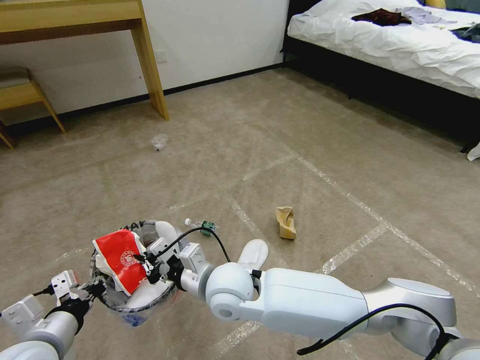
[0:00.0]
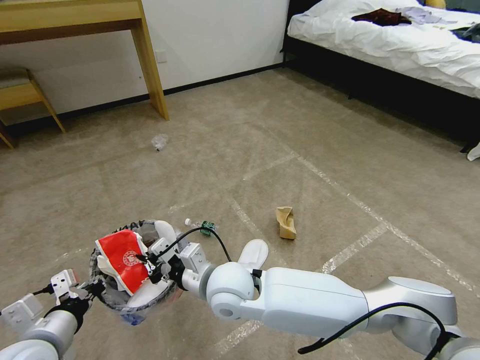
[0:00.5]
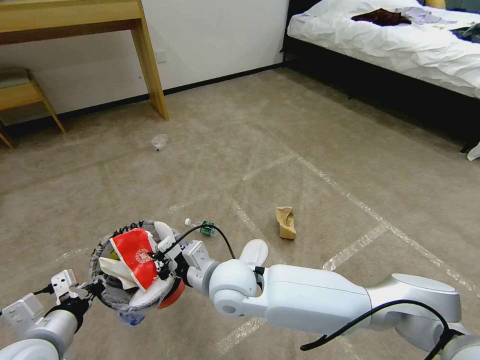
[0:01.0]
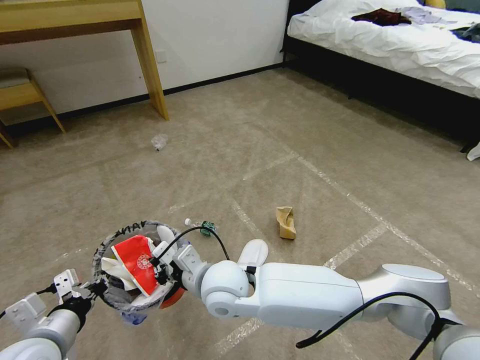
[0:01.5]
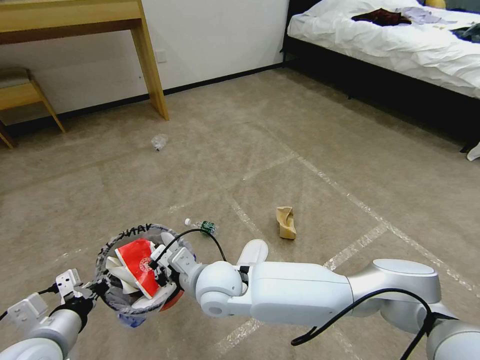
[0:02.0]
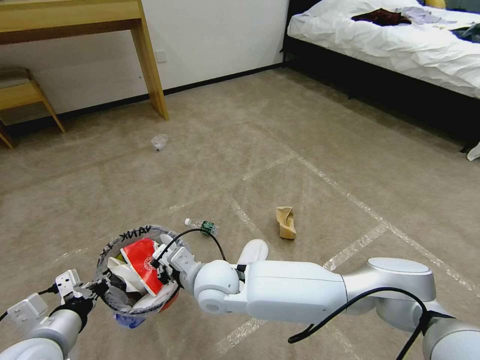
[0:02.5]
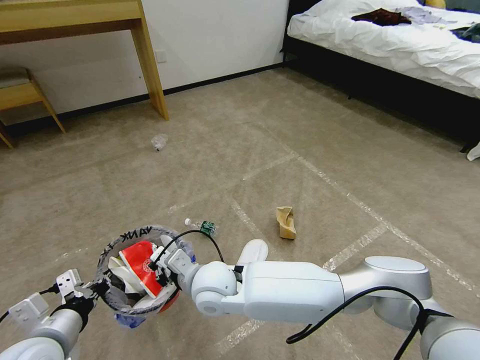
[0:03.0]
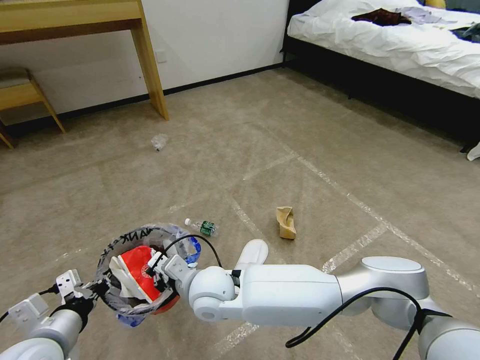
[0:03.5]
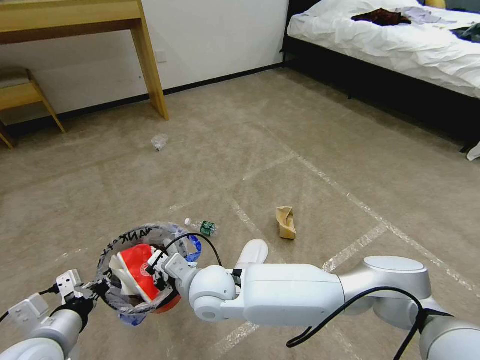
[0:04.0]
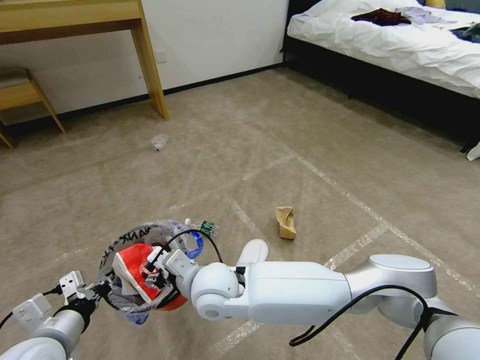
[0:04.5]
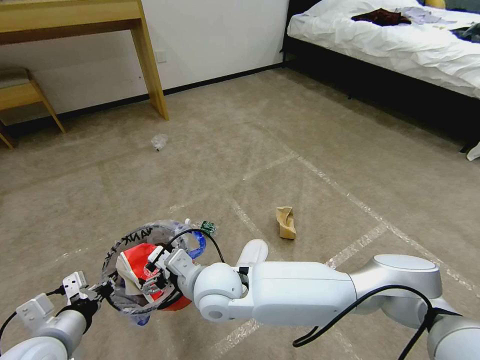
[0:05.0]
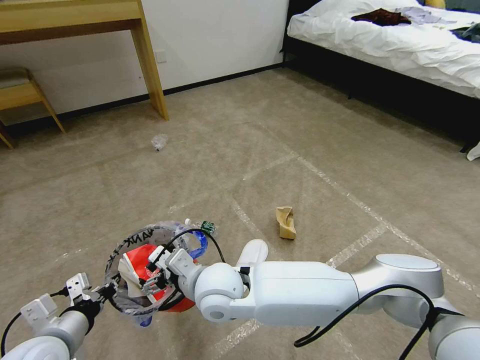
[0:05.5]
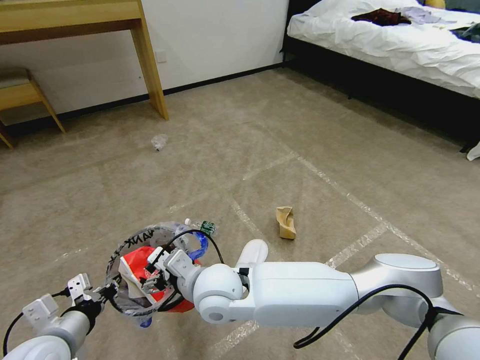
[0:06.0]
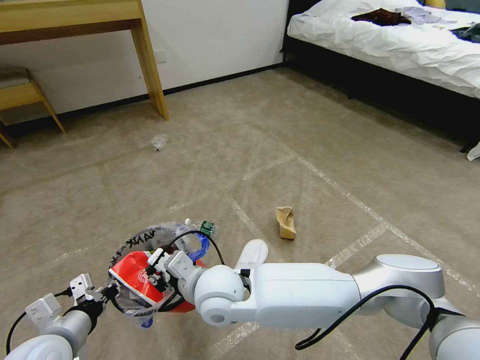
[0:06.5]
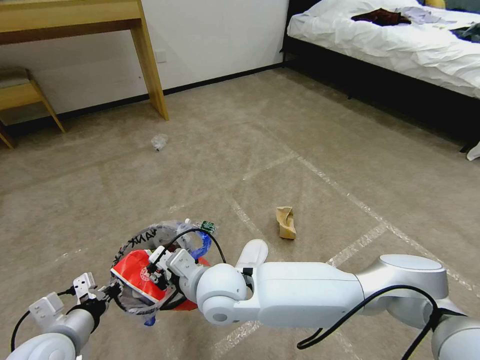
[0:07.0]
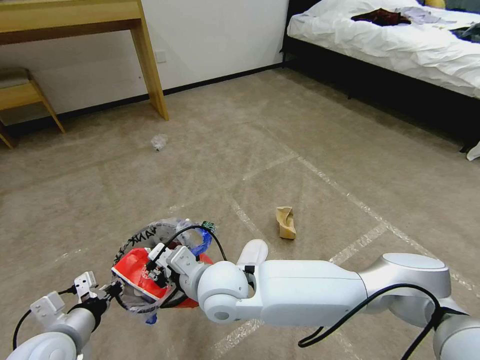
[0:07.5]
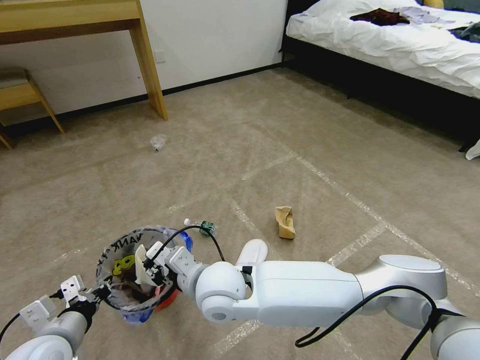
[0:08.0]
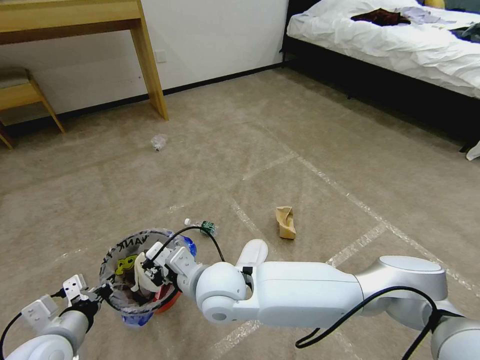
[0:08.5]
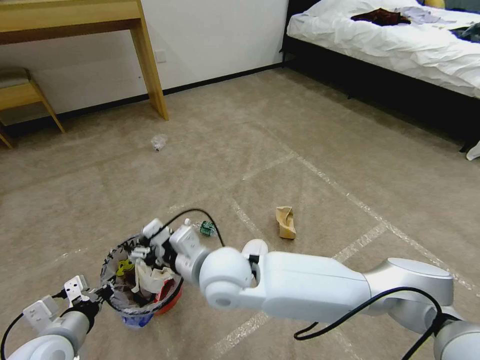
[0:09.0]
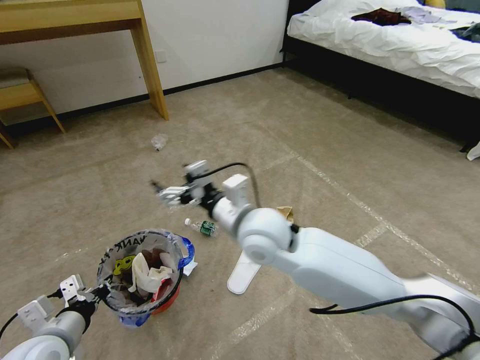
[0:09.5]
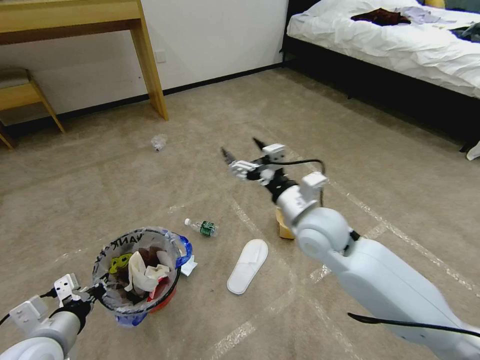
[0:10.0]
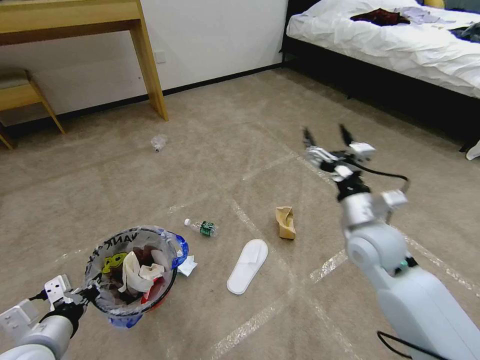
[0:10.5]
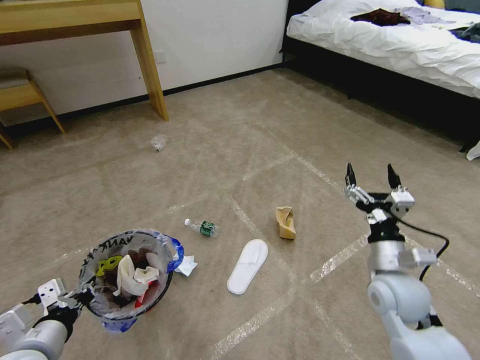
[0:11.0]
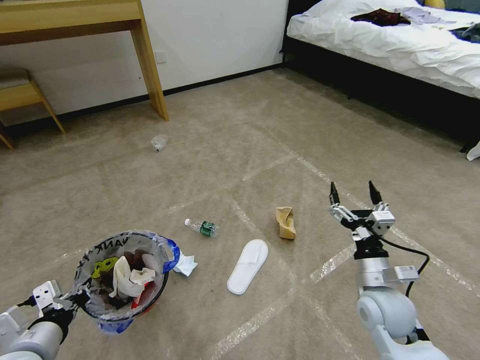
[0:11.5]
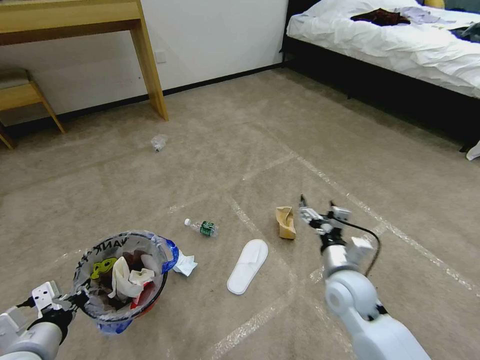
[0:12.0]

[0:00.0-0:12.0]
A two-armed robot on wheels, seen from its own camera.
Task of the whole recording: Pick up the trash bin and place the garbage on the floor into it.
0.0 to 2.0 s: There are only small adjustments of the grippers.
2.0 to 4.0 s: There are only small adjustments of the grippers.
4.0 to 6.0 s: The right gripper opens its fingers.
6.0 to 8.0 s: The right gripper closes.
8.0 to 10.0 s: The right gripper shifts approximately 20 cm to the right and forward, and opens.
10.0 to 12.0 s: The right gripper shifts some 20 cm downward, to the right and backward.

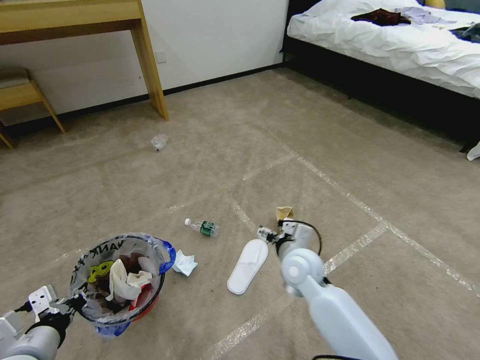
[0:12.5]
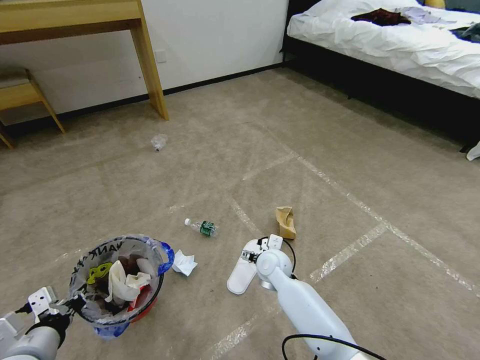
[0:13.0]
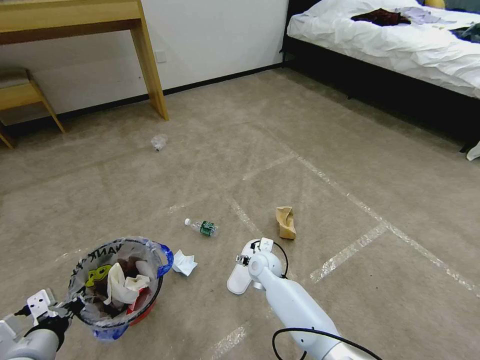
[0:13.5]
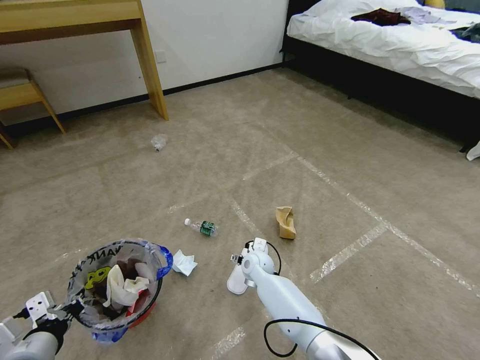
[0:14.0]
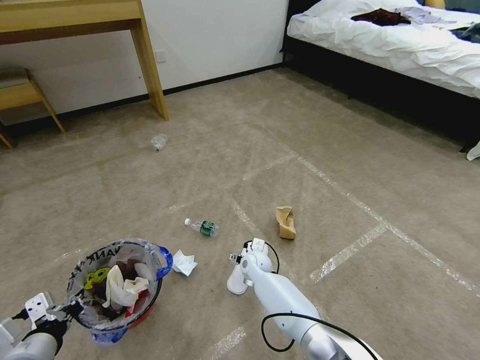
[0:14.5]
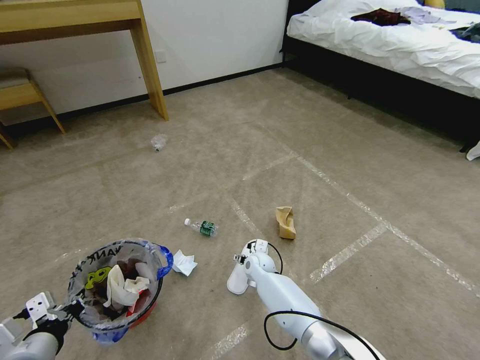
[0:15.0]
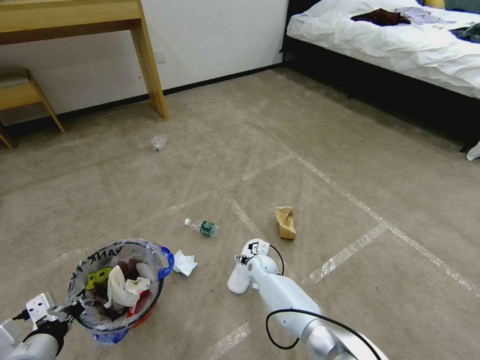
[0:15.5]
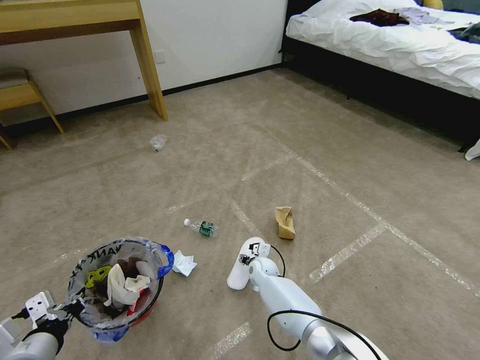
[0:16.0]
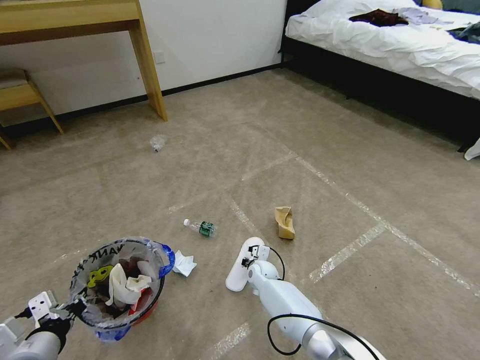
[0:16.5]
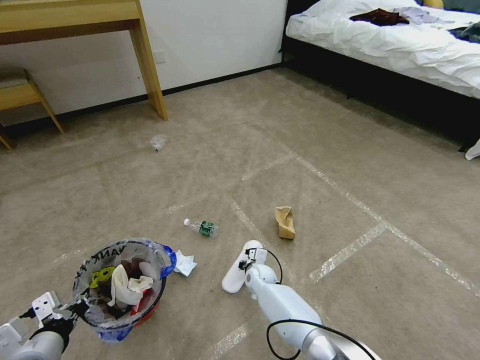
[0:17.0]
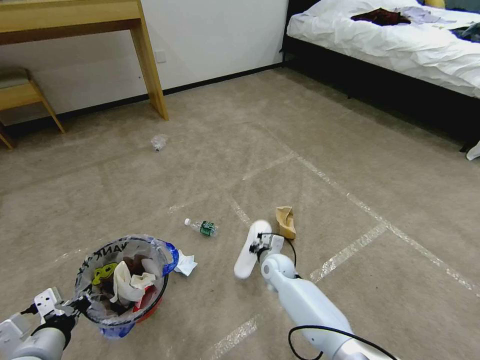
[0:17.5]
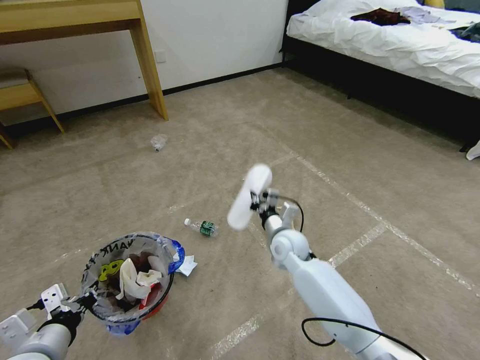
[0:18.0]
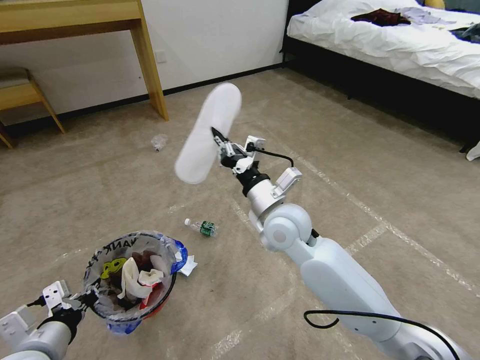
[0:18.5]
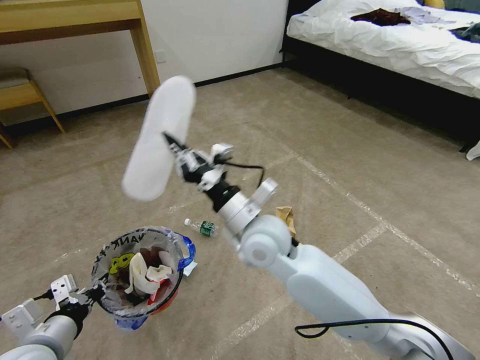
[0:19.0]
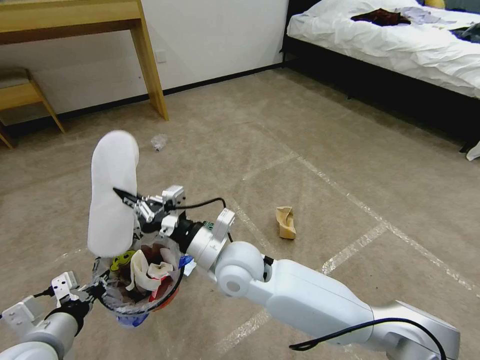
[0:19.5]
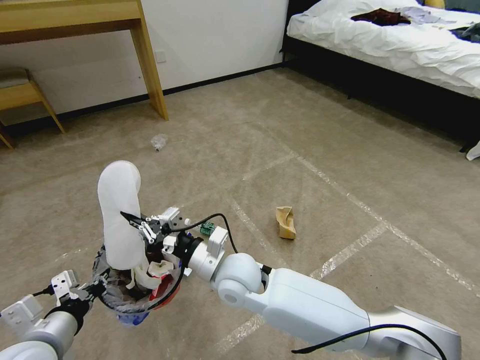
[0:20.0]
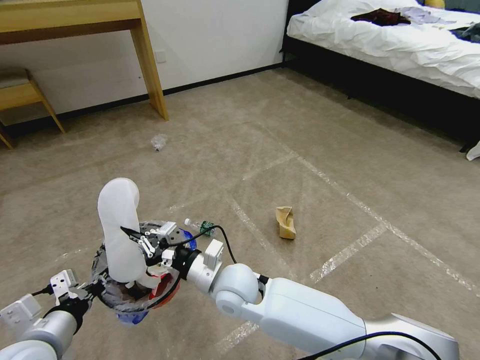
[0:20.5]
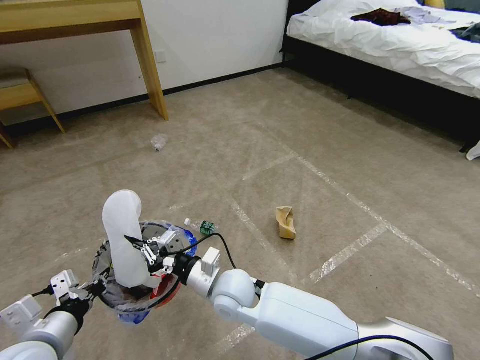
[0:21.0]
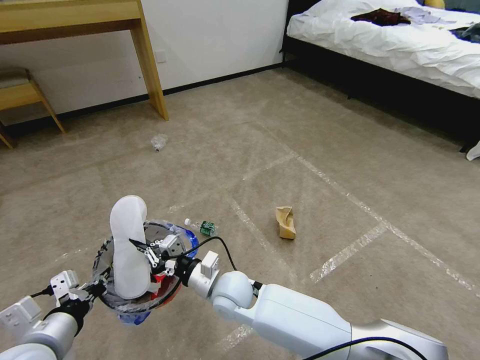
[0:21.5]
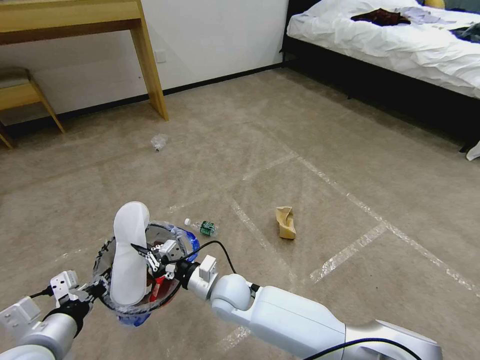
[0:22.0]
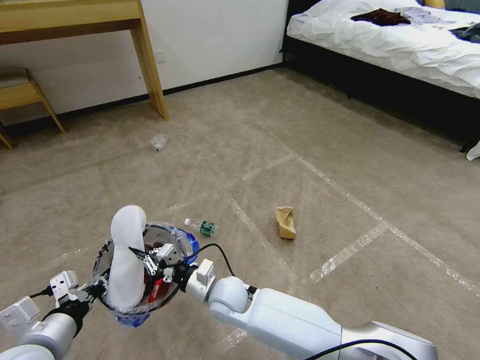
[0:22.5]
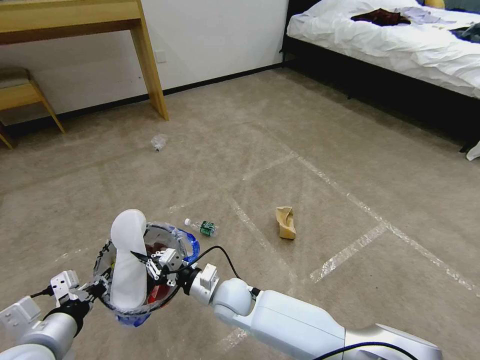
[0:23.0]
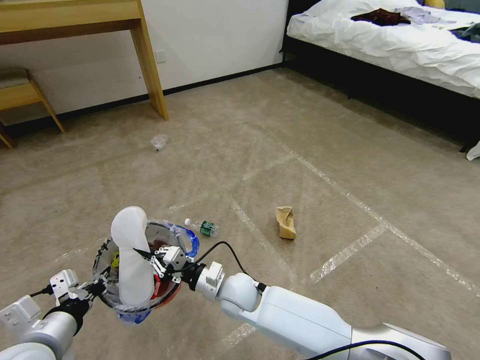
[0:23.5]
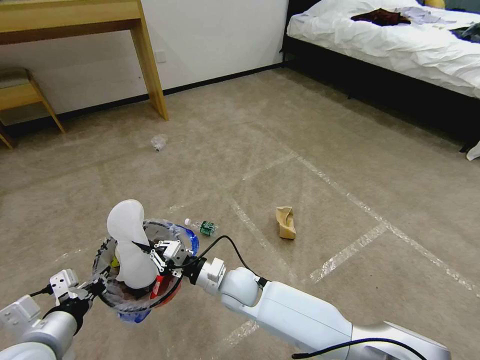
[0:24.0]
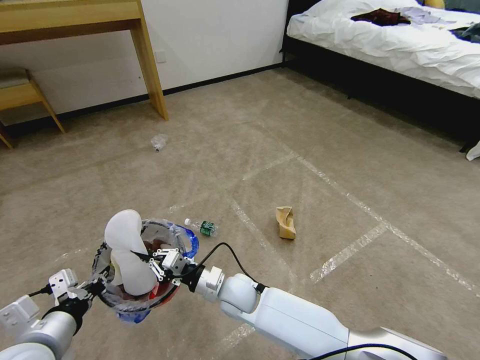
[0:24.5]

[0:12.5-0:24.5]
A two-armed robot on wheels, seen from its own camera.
Task of the whole recording: Pick up the trash bin and place the garbage on the floor into it.
12.5 to 14.5 s: The right gripper is displaced downward, to the left and forward by some 20 cm.
14.5 to 16.5 s: The right gripper changes place by approximately 5 cm, and closes its fingers.
16.5 to 18.5 s: The right gripper shifts approximately 35 cm upward.
18.5 to 20.5 s: The right gripper shifts approximately 15 cm downward, to the left and backward.
20.5 to 22.5 s: The right gripper is displaced downward by roughly 10 cm.
22.5 to 24.5 s: The grippers make only small movements.

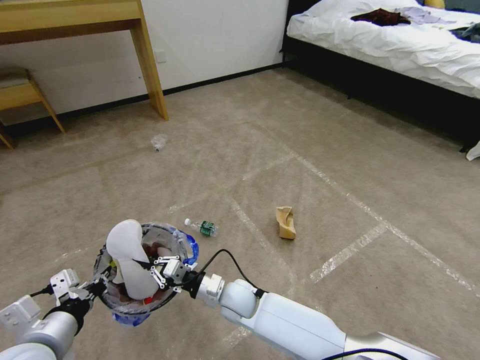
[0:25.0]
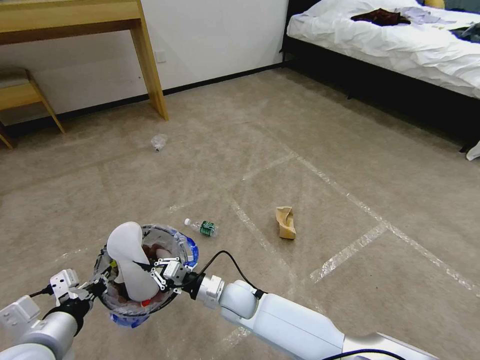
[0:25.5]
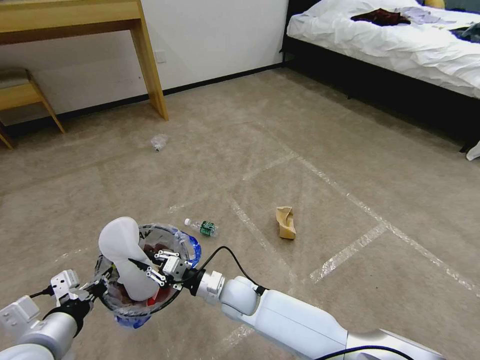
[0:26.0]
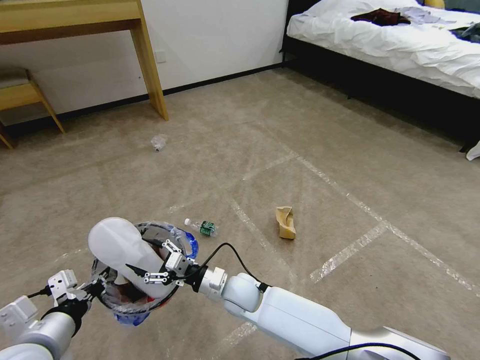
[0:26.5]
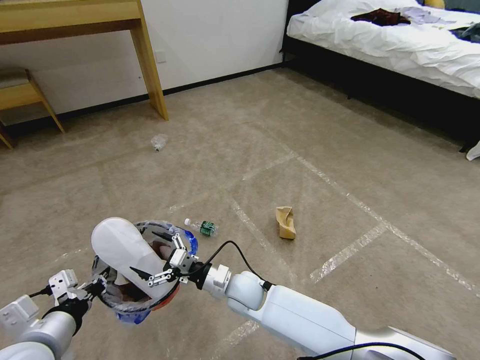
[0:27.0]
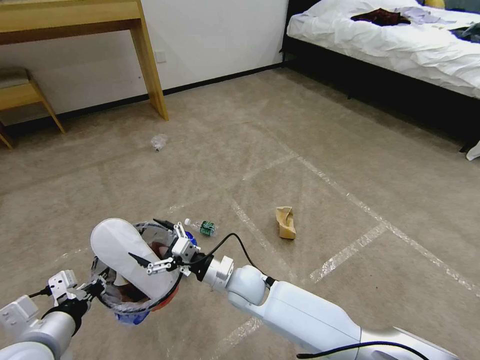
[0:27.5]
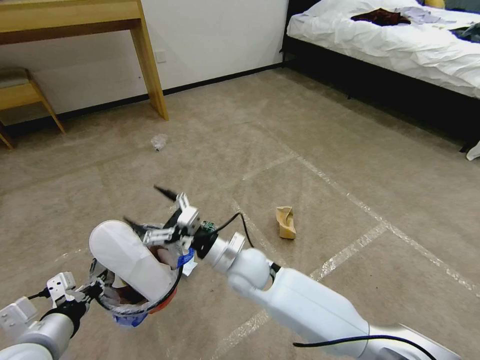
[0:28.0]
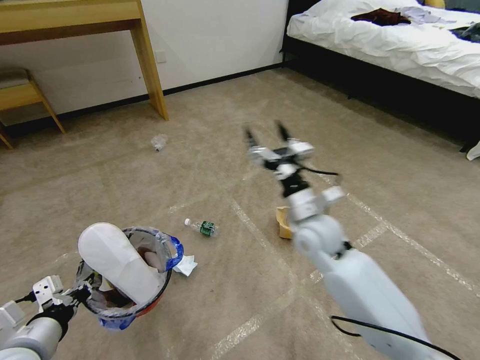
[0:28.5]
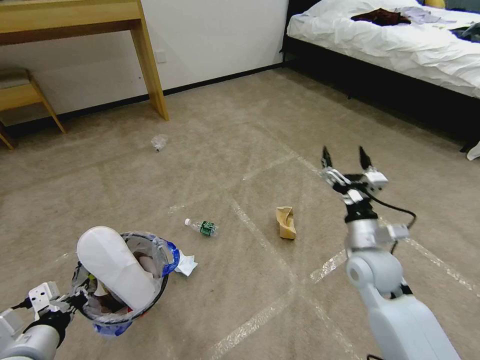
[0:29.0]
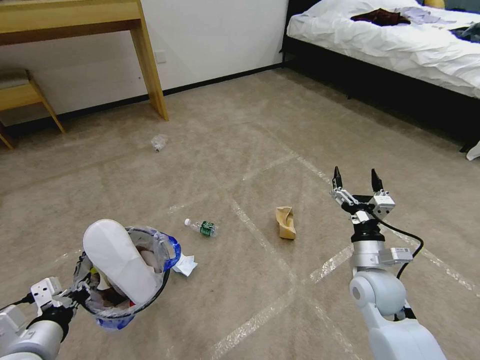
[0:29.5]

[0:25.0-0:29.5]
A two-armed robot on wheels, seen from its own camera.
Task of the whole recording: Pick up the trash bin and place the garbage on the floor into it.
25.0 to 27.0 s: The right gripper opens its fingers.
27.0 to 29.5 s: The right gripper heads to the right, covering roughly 30 cm.
